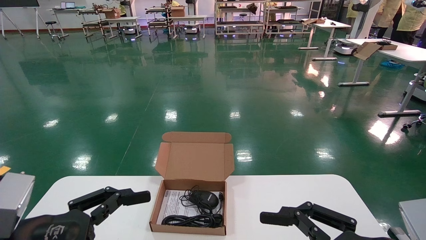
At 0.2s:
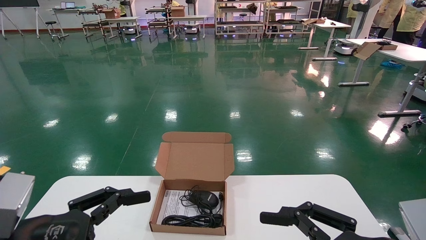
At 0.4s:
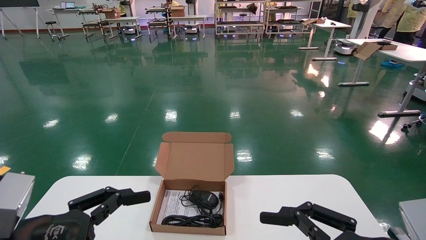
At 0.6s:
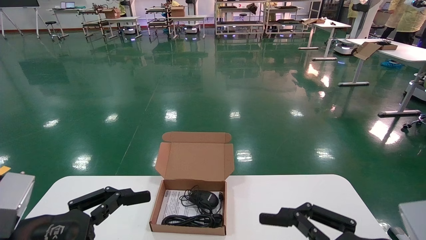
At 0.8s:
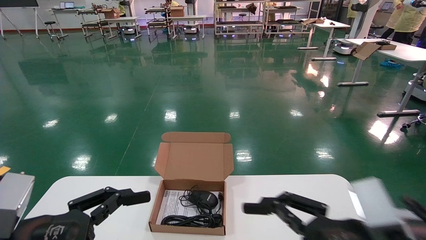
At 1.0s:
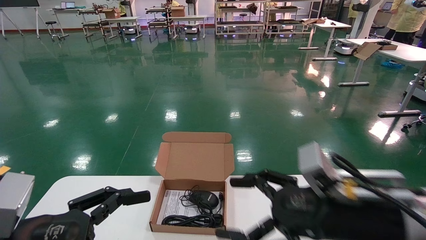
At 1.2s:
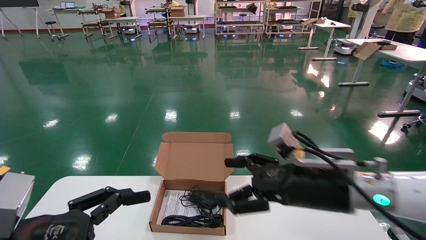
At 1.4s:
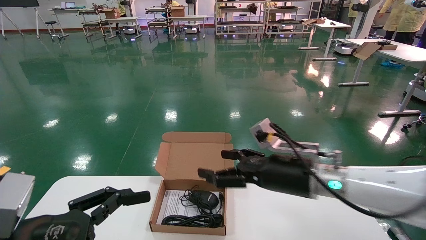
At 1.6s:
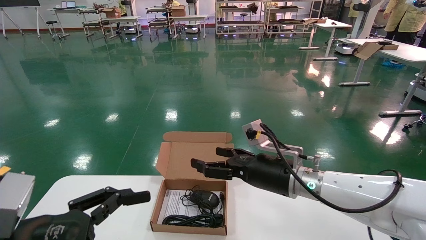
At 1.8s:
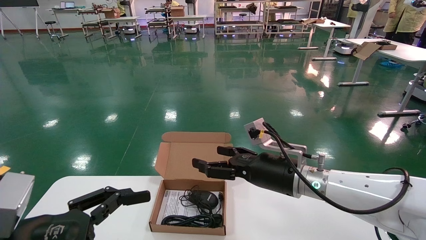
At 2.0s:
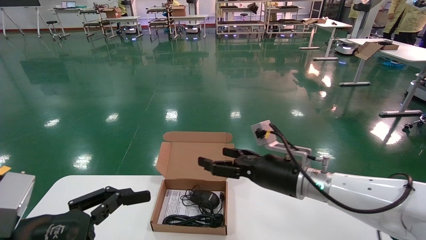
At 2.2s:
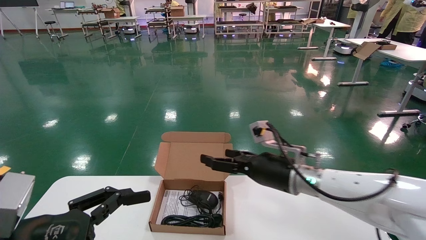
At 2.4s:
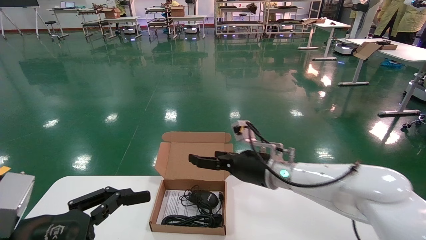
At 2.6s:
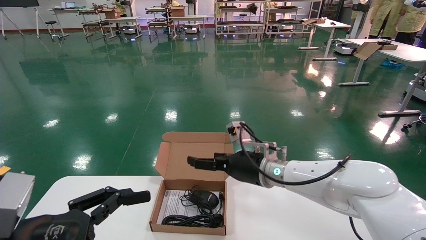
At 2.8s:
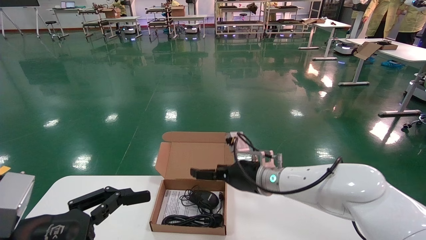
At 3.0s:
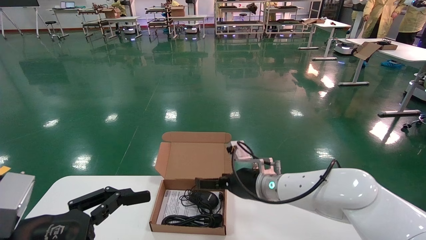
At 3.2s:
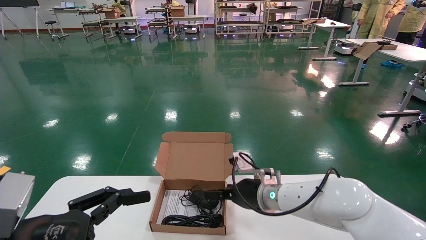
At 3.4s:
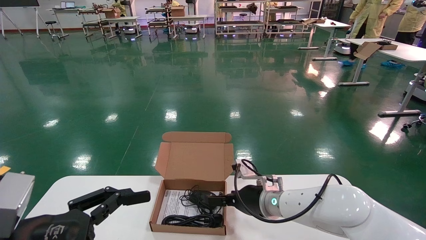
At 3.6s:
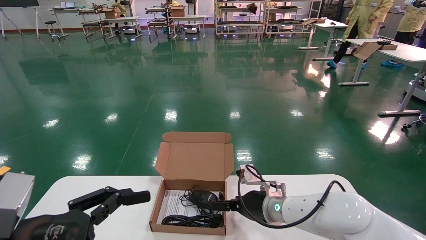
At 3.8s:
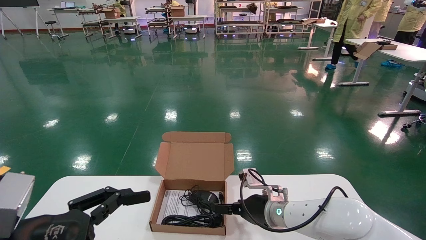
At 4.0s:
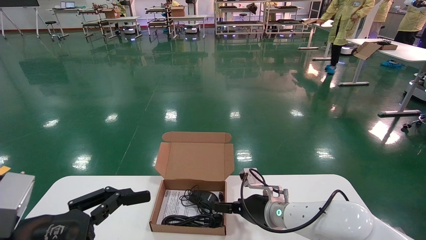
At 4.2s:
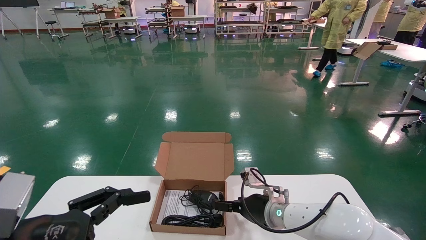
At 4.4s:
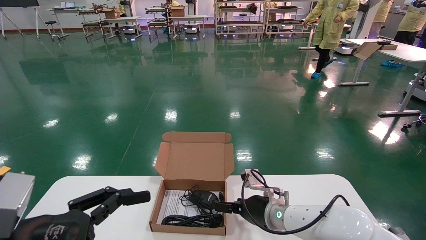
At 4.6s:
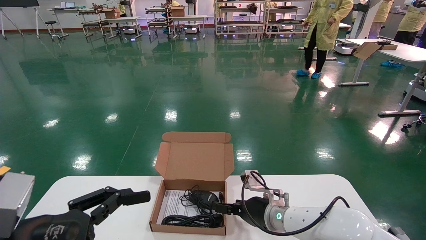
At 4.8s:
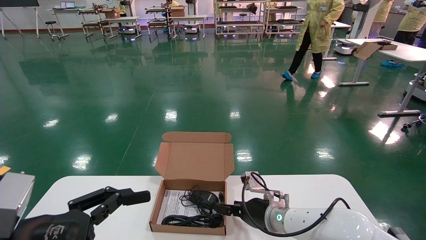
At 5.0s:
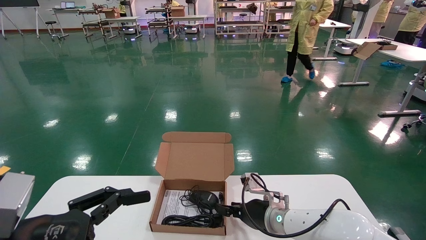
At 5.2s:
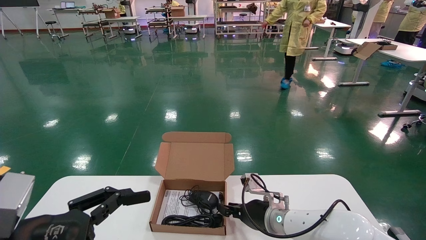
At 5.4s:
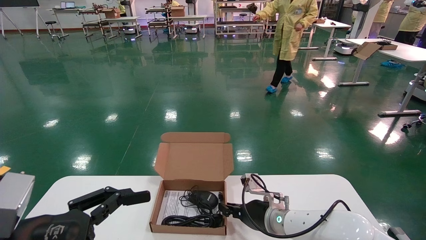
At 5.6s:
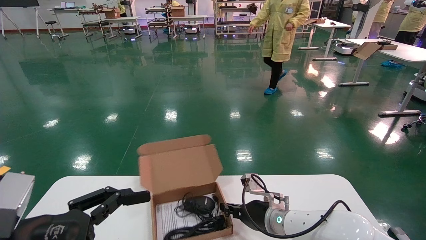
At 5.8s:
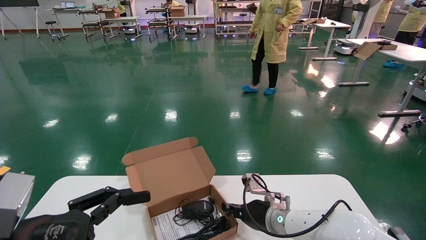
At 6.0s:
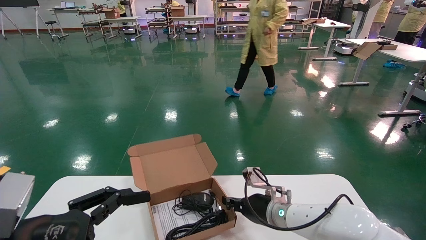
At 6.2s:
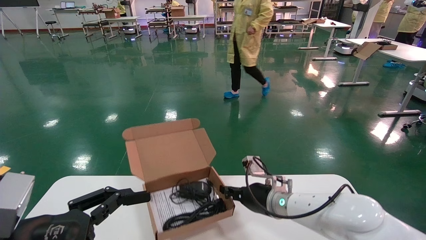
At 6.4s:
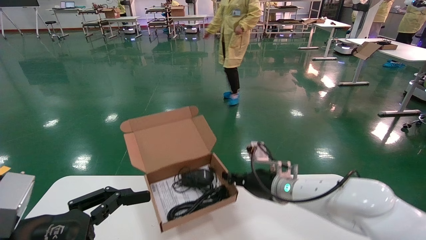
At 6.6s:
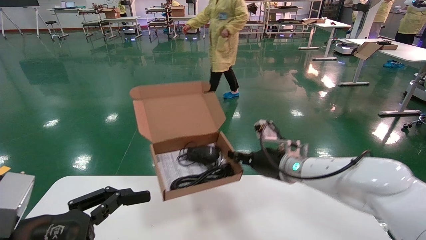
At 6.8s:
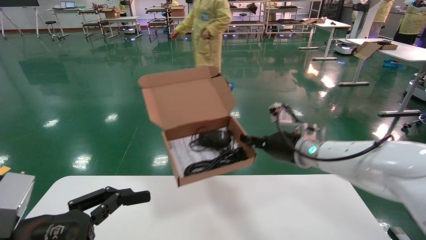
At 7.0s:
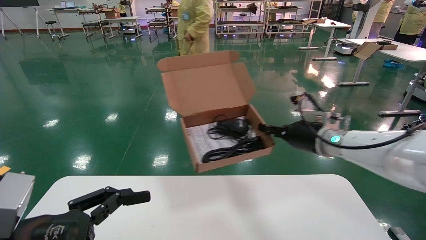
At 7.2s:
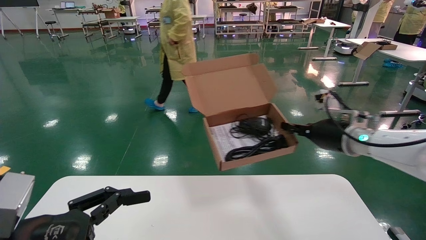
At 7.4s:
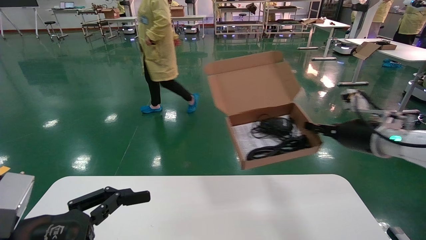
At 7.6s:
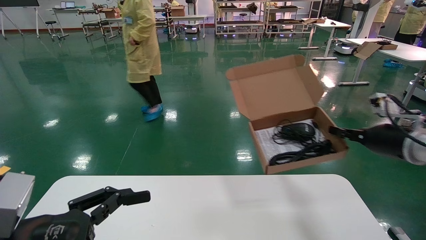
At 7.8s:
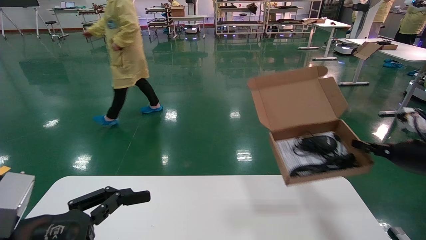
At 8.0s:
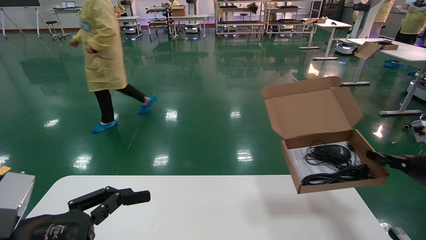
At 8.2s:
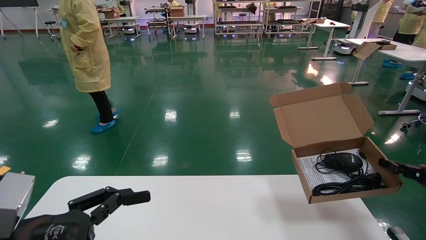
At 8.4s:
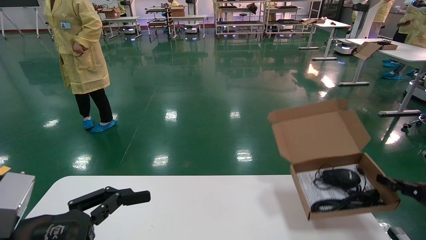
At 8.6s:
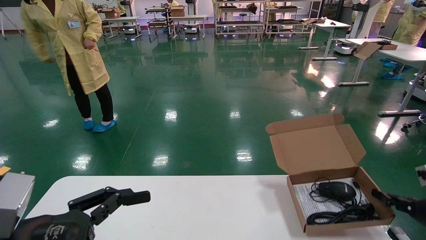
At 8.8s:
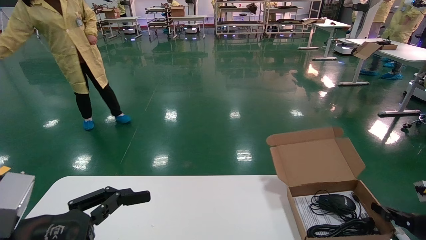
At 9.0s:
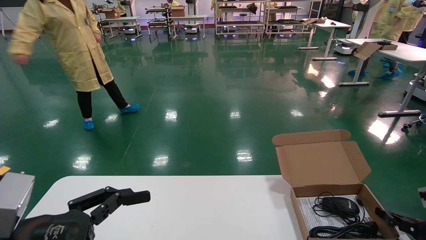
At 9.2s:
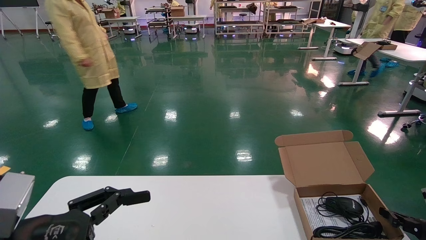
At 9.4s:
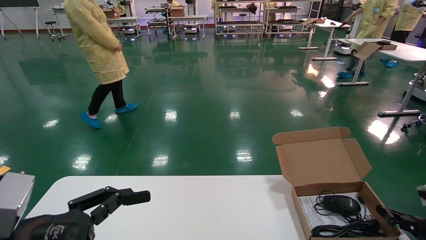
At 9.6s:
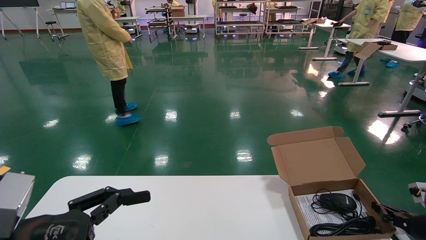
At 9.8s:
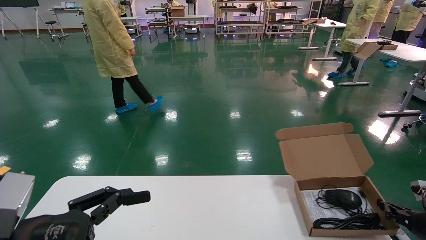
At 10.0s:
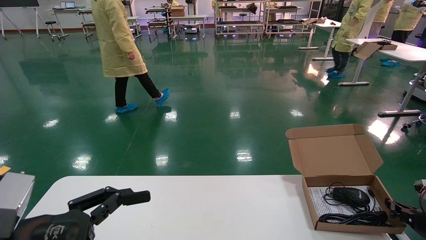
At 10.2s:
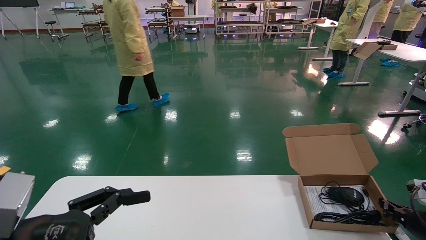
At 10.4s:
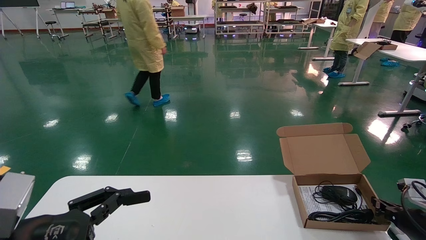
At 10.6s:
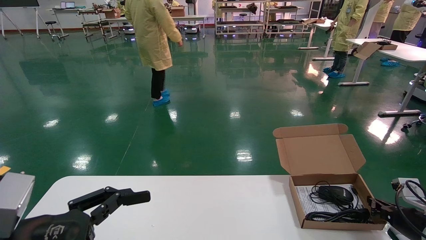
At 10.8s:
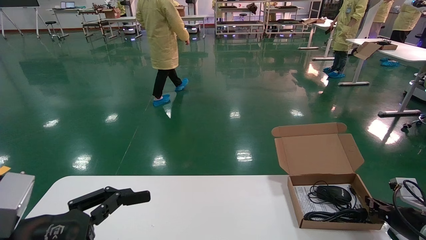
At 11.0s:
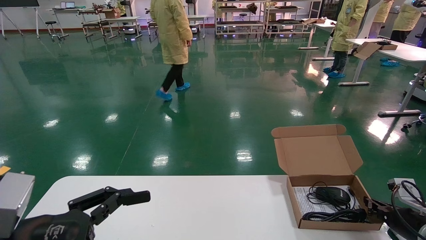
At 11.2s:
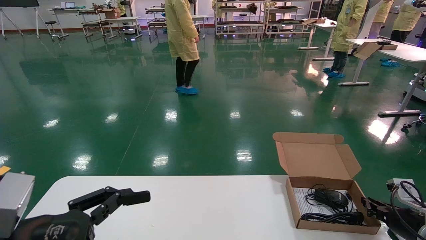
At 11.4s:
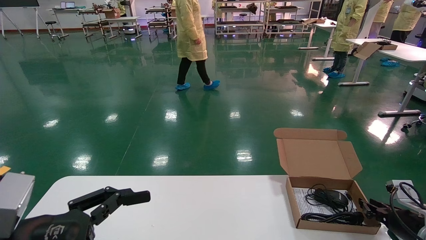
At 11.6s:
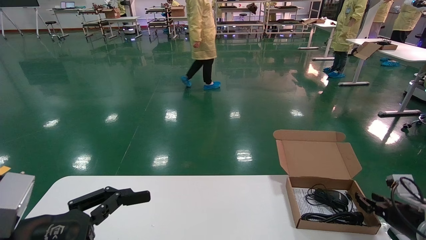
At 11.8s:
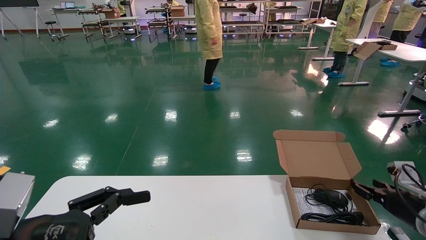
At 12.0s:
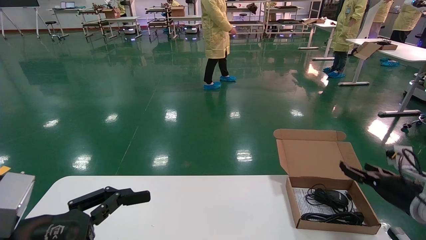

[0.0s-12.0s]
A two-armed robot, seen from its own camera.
Task of the whole recording: move the position of the storage box with accessories on the table.
Step, 1.0s to 5.8s: Grab and pick up the open mouse box from the accessory packaging area.
Step, 6.0s to 11.2s: Place the open mouse box onto the operation table.
0.0s to 1.6s: The right gripper moves forward and to the left, about 25 cm.
1.6s to 3.0s: The right gripper travels forward by about 5 cm.
3.0s to 4.4s: The right gripper heads downward, covering about 5 cm.
4.4s to 6.0s: The right gripper closes up.
6.0s to 7.6s: The right gripper is displaced to the right and upward by roughly 30 cm.
7.6s to 9.0s: The right gripper moves downward and to the right, roughly 20 cm.
9.0s to 10.4s: The grippers stay close to where they were, moving slightly.
10.4s to 12.0s: The right gripper travels upward by some 5 cm, and opens up.

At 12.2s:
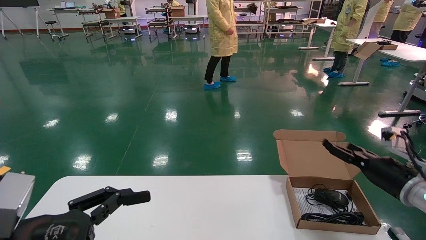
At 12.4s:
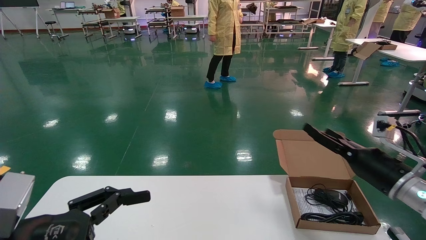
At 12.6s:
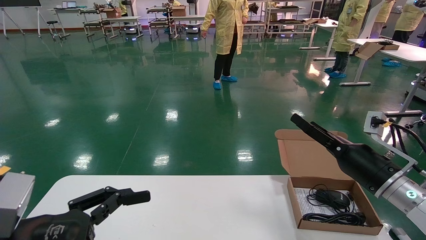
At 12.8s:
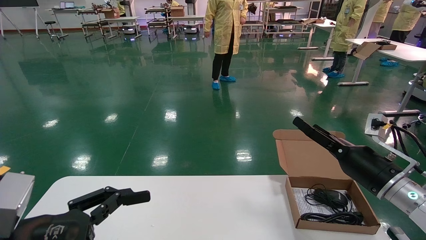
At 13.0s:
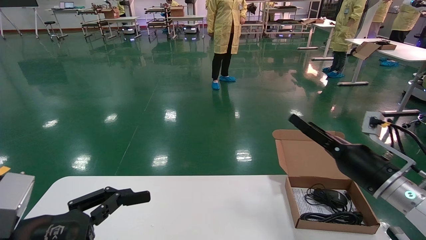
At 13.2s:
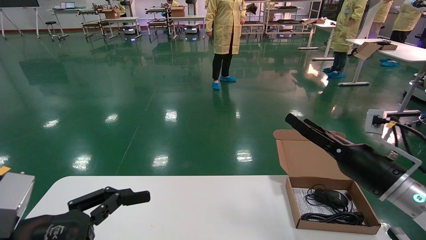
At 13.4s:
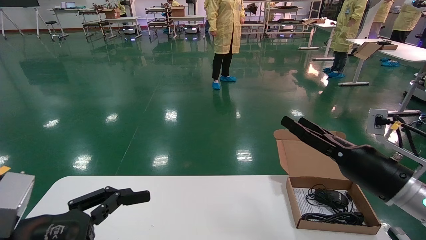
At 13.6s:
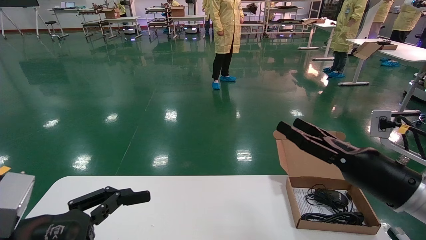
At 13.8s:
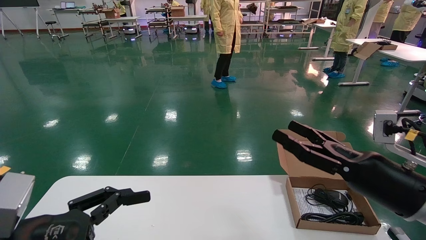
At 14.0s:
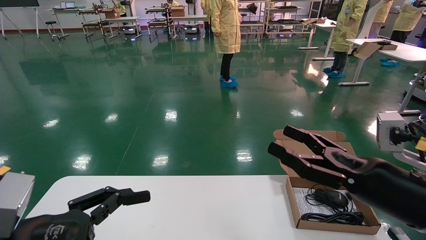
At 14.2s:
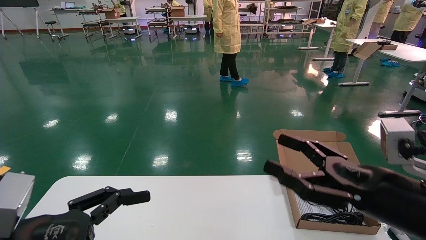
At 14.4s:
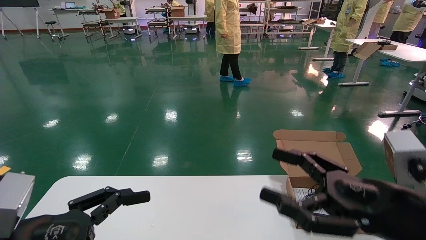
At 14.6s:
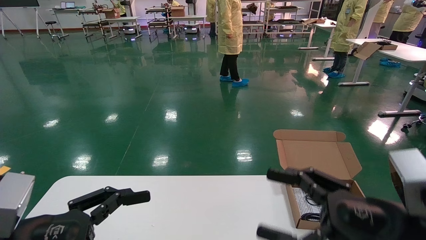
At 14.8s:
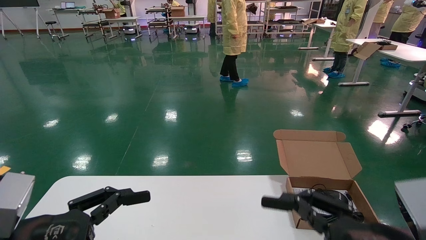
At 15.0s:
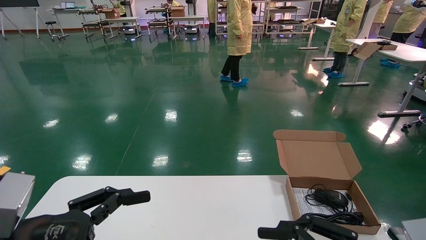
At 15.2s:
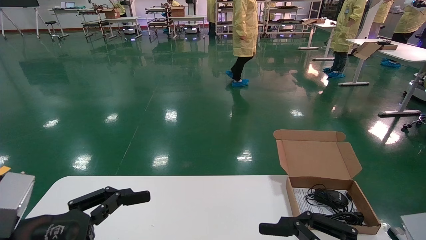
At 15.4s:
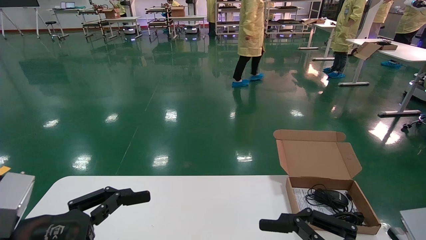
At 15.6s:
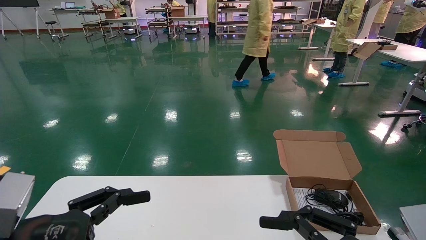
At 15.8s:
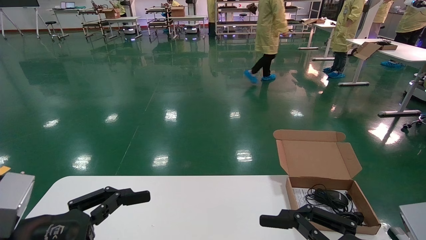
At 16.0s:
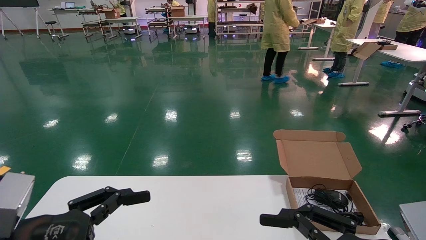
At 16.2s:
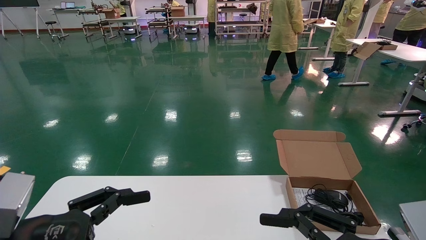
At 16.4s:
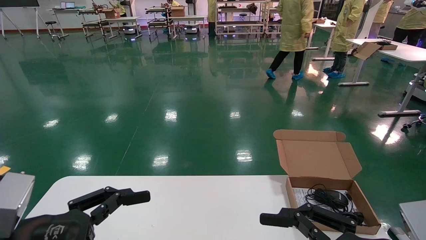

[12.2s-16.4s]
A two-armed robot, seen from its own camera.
Task of the whole recording: move the position of the storage box with accessories on the table.
12.2s to 13.6s: The right gripper moves backward and to the left, roughly 10 cm.
13.6s to 15.0s: The right gripper travels backward by some 15 cm.
15.0s to 16.4s: Both grippers stay about where they are.
